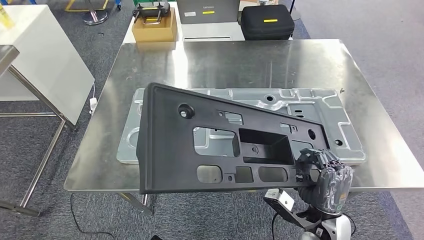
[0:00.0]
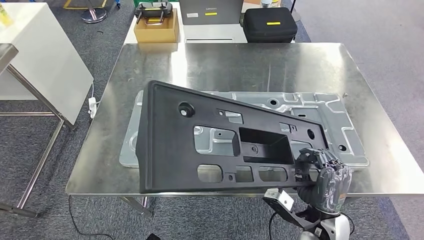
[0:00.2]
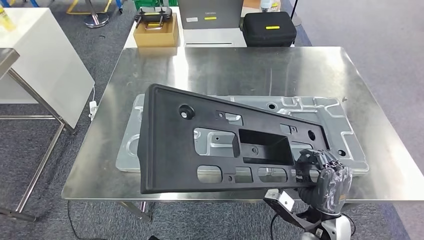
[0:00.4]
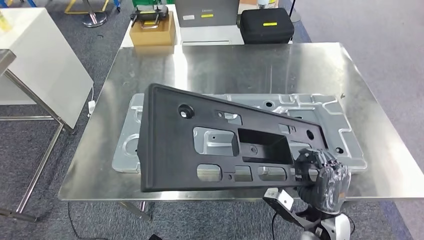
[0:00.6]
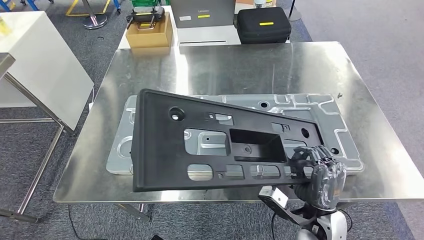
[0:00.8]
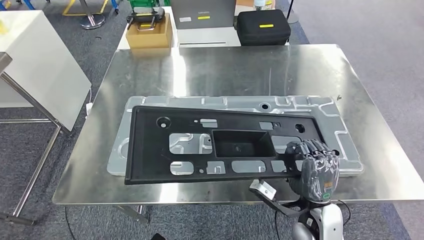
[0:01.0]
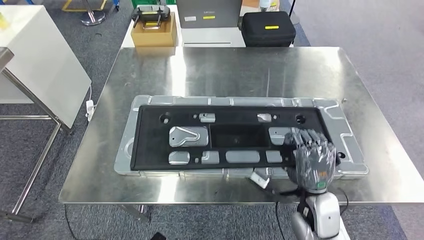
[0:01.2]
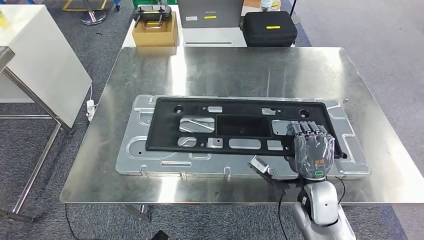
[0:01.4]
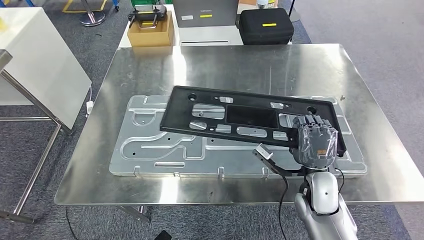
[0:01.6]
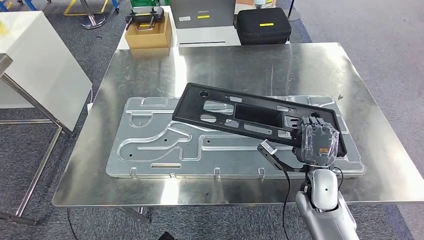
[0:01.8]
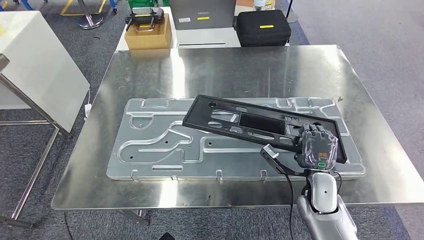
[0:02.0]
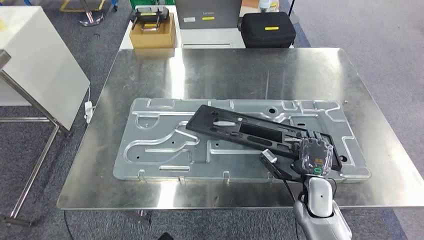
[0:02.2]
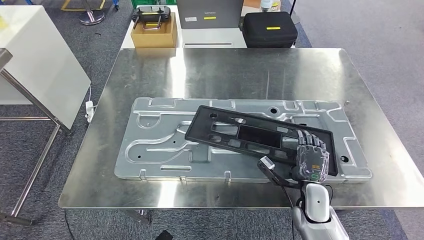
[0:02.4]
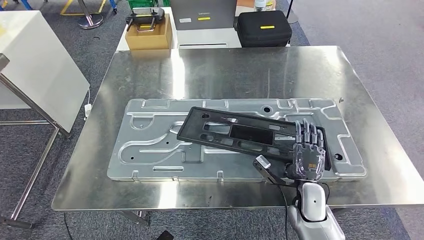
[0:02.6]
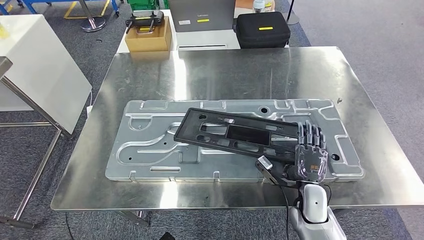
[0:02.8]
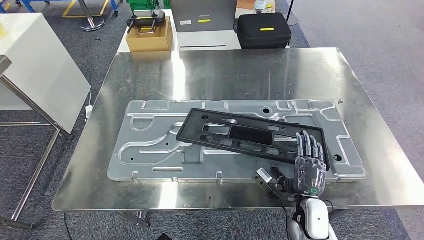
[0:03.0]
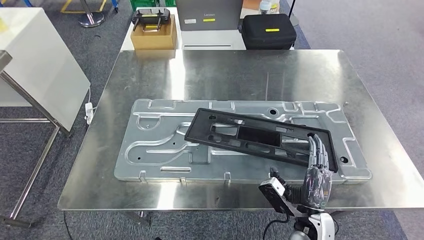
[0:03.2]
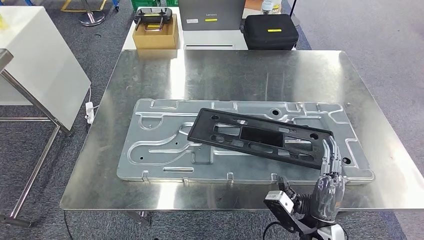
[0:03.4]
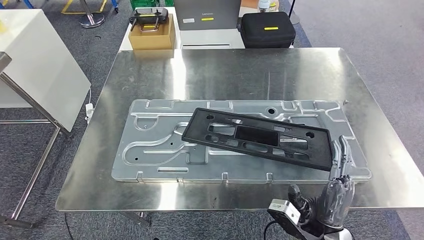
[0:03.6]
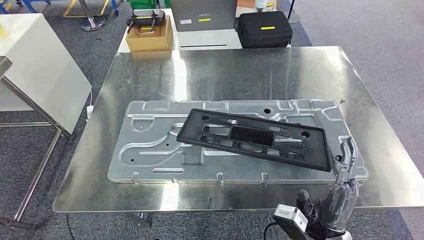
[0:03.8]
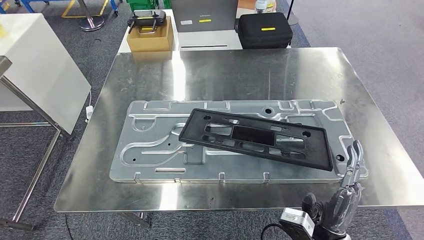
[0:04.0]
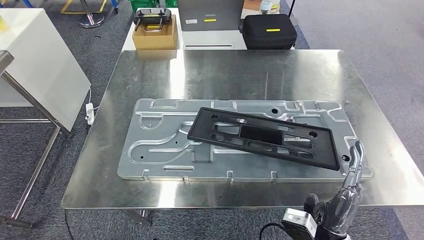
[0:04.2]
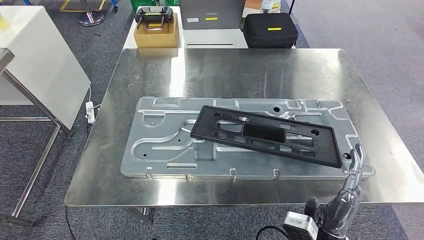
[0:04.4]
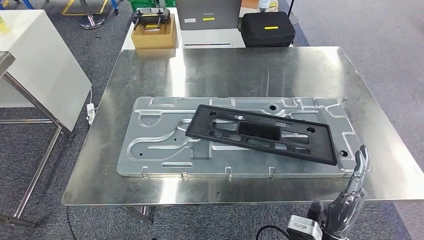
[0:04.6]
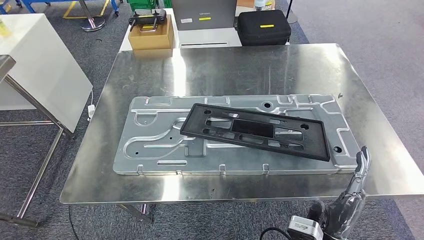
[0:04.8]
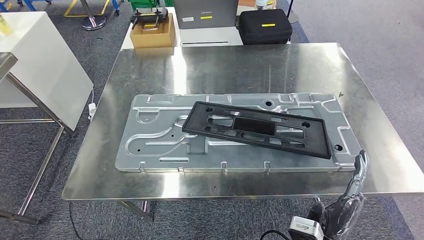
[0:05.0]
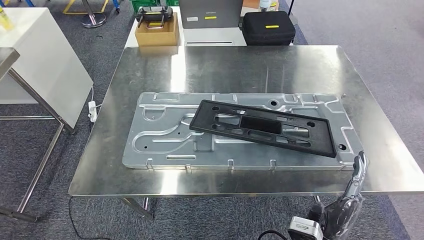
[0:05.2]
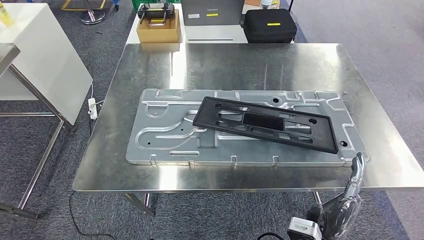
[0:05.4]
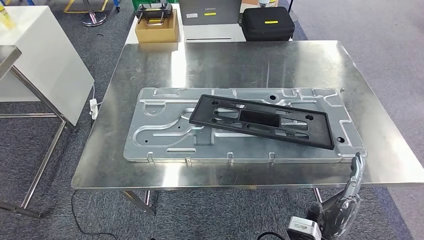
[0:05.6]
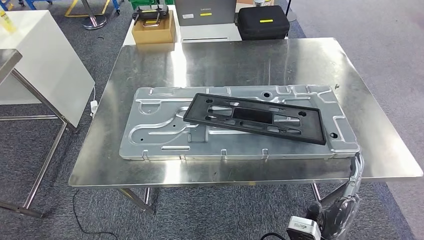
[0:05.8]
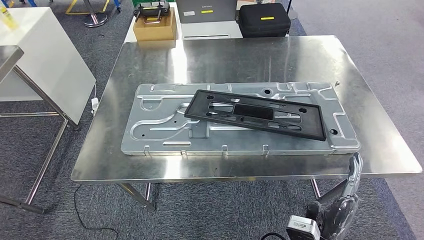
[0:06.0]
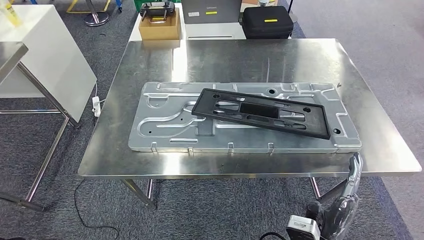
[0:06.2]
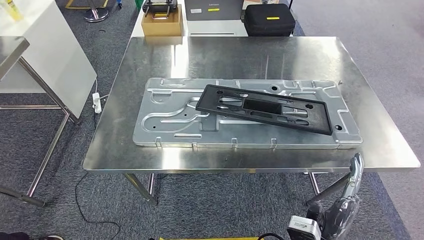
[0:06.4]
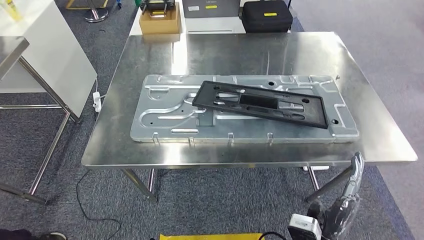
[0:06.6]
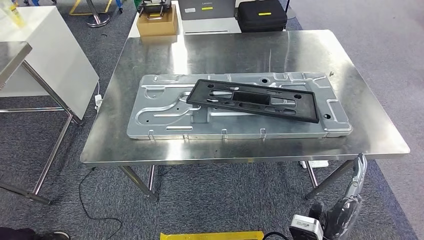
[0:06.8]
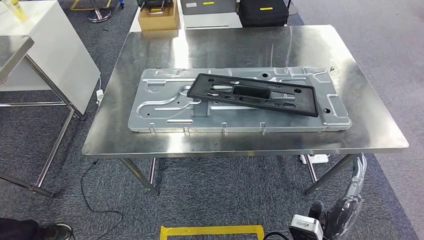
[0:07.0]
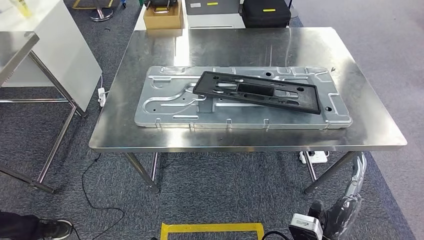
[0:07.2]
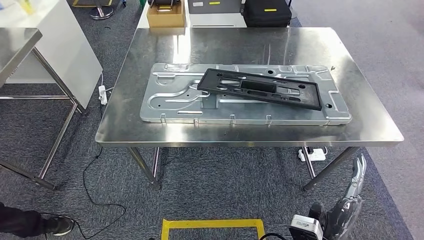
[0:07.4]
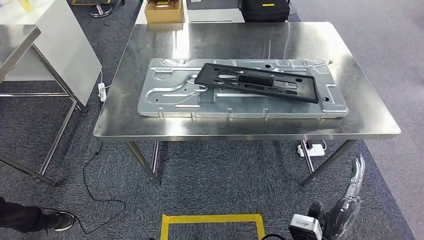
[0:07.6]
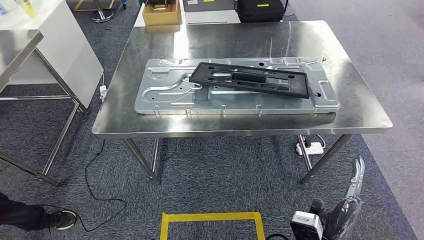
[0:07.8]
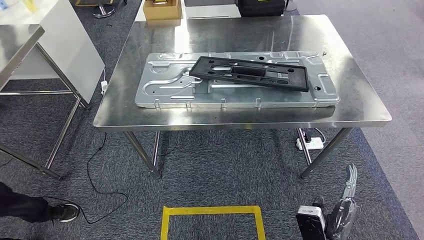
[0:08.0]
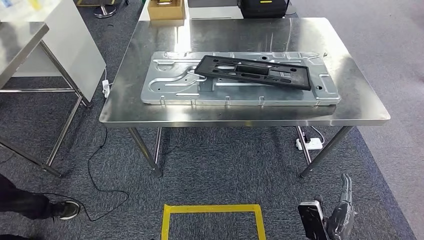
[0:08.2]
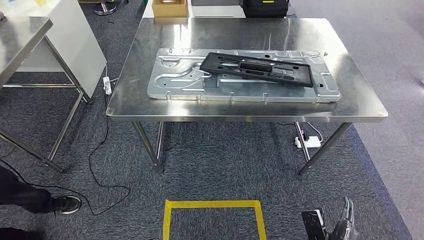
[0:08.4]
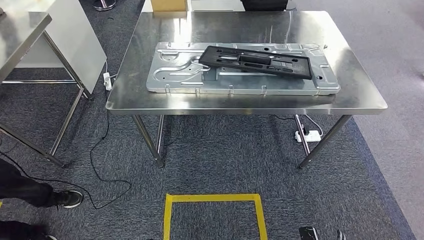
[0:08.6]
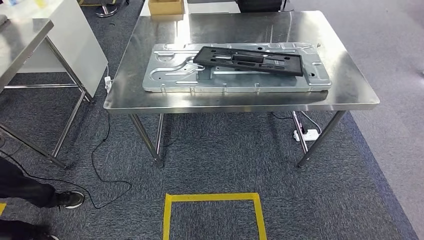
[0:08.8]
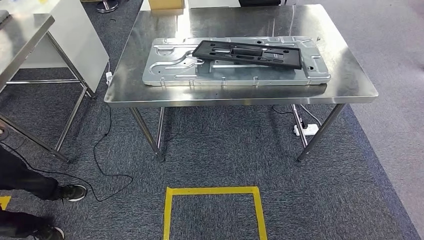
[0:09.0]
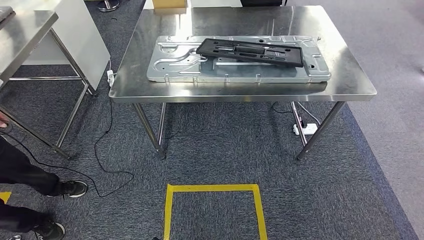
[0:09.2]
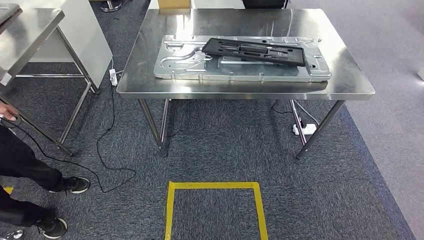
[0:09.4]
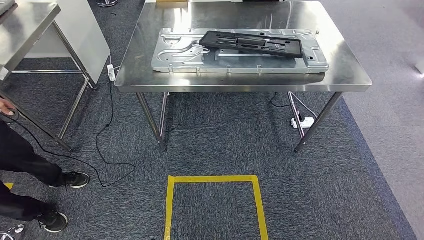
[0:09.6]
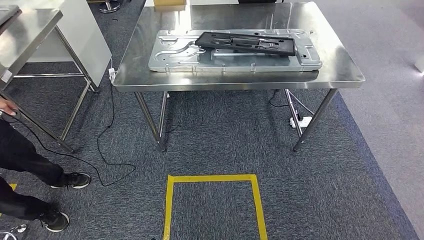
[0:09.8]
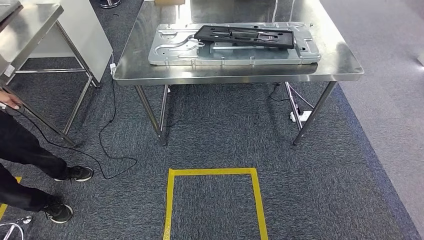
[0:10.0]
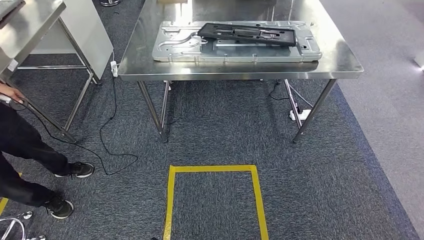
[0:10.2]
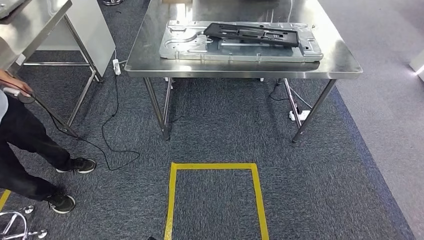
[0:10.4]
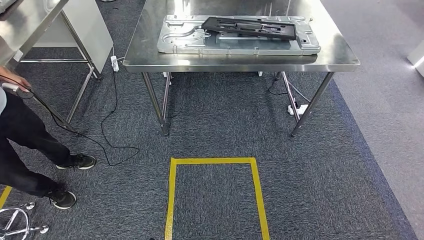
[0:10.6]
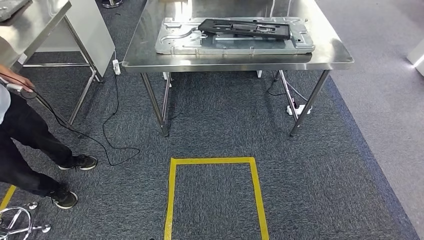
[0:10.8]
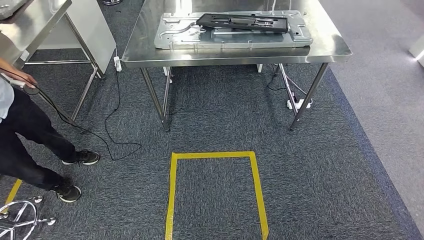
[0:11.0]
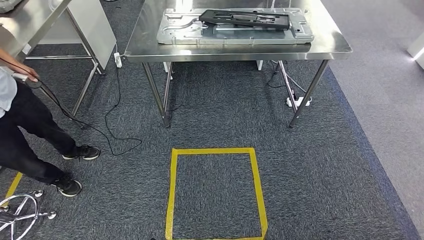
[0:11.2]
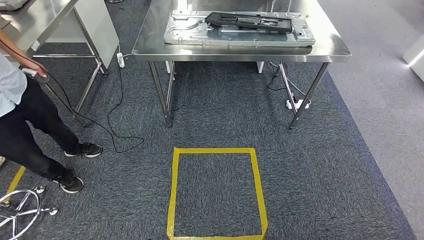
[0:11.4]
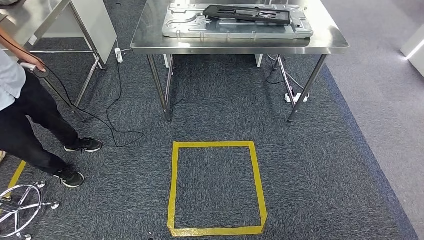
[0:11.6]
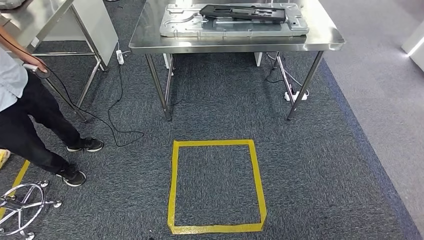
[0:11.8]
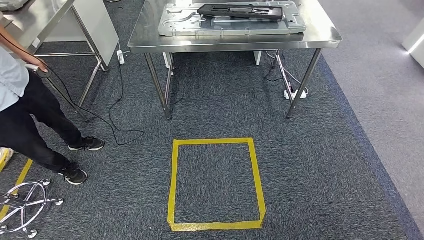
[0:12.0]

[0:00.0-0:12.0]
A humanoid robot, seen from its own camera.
Step, 0:00.0 to 0:06.4: Insert the large material into the corresponding slot on the workbench.

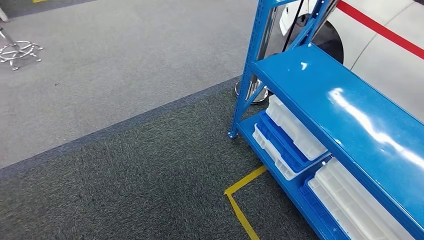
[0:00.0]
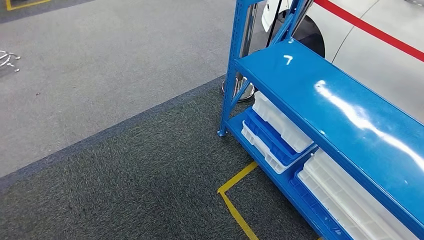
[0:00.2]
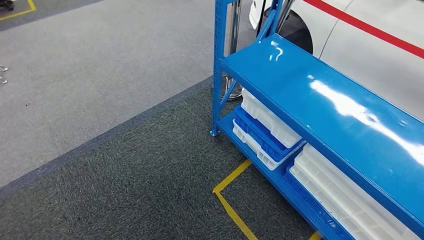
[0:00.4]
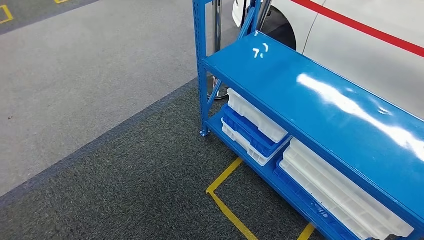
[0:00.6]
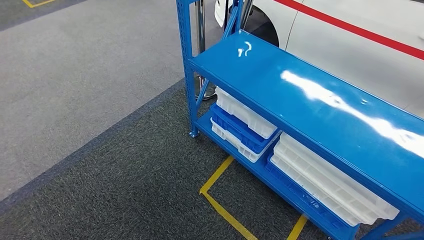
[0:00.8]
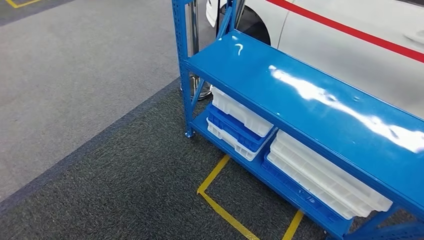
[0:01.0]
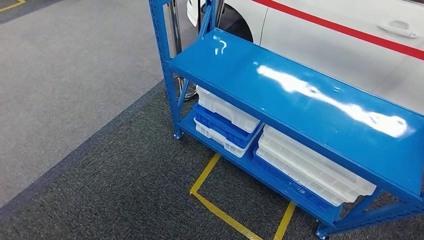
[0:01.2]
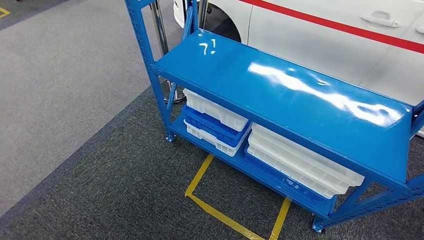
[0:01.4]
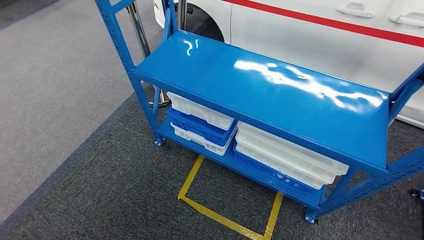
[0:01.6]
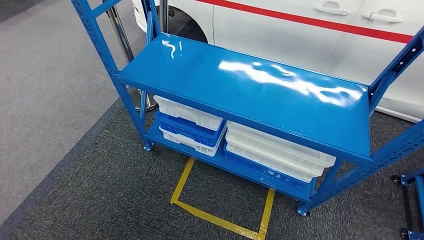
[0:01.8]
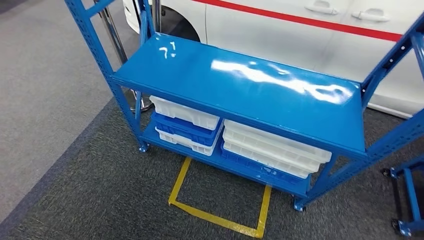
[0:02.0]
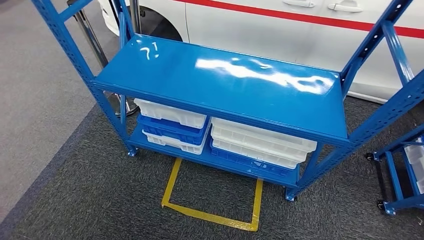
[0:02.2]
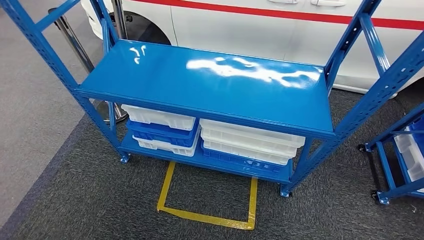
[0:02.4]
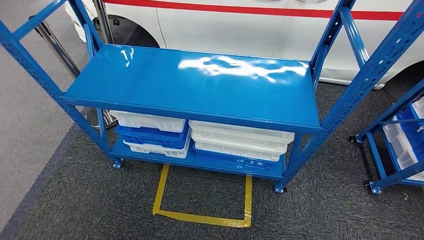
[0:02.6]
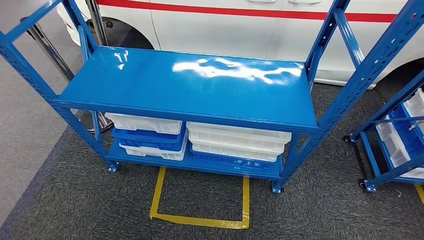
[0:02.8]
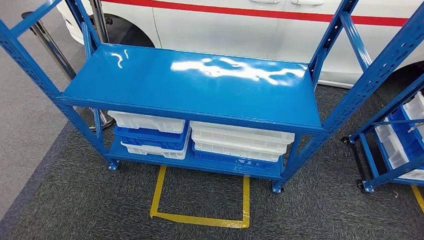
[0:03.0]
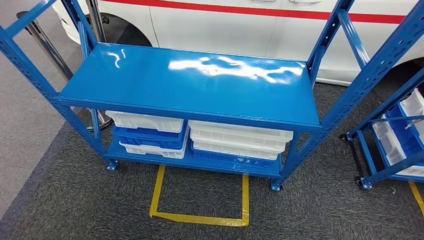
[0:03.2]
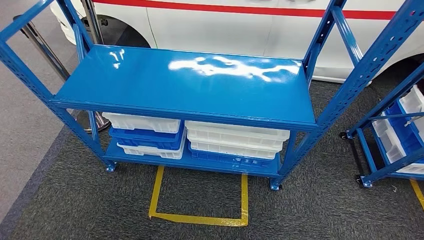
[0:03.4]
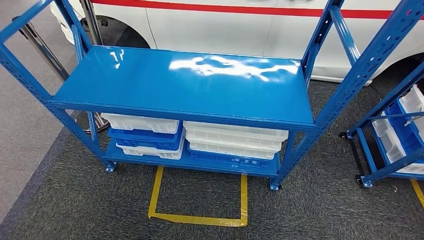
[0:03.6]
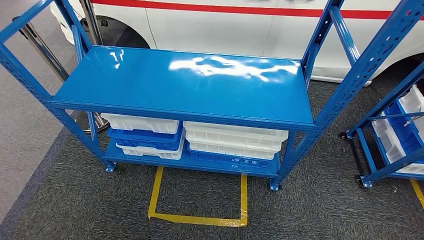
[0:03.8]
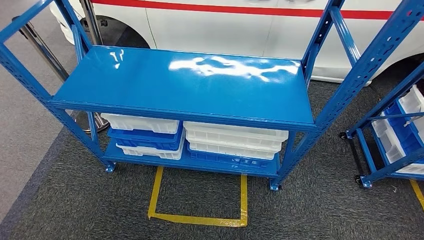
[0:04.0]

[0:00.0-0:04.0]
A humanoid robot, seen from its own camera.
Step, 0:00.0 to 0:04.0: Return to the initial position at the shelf.
